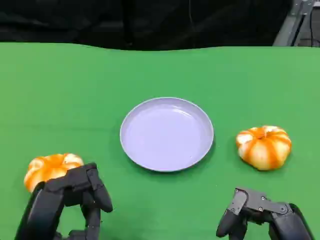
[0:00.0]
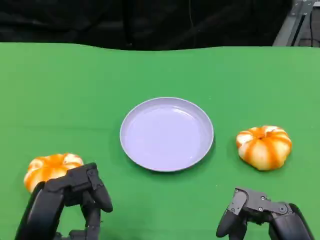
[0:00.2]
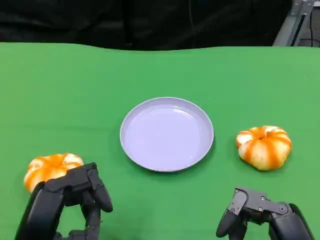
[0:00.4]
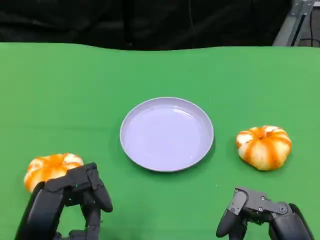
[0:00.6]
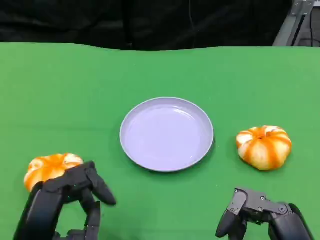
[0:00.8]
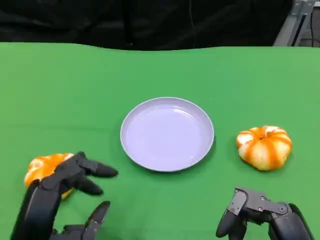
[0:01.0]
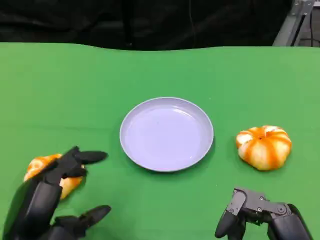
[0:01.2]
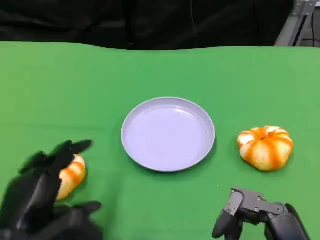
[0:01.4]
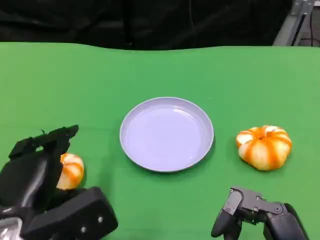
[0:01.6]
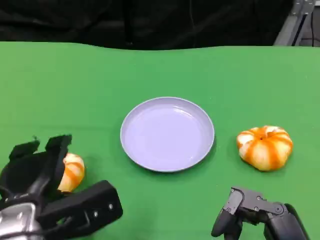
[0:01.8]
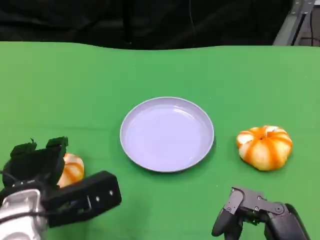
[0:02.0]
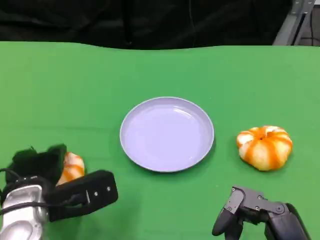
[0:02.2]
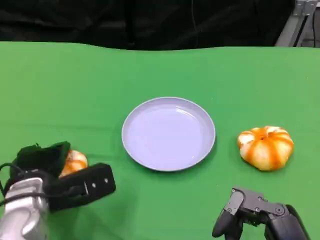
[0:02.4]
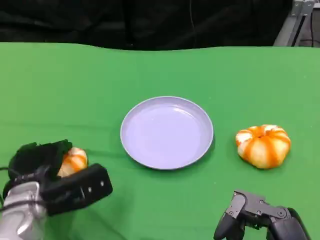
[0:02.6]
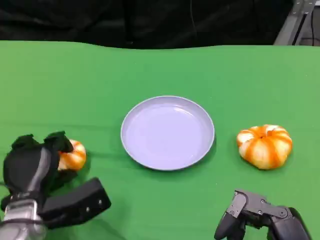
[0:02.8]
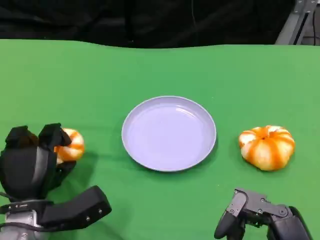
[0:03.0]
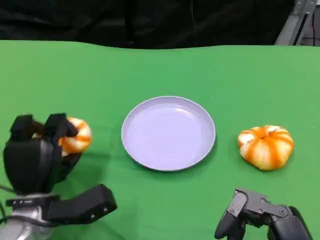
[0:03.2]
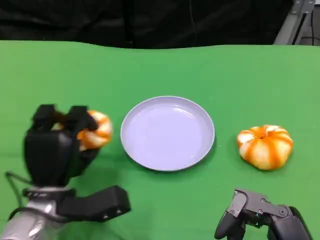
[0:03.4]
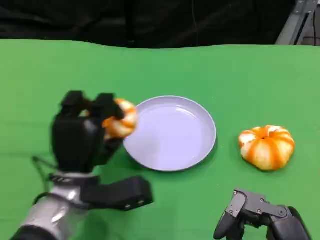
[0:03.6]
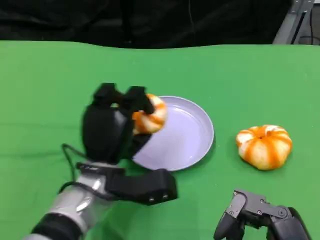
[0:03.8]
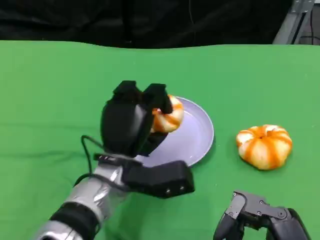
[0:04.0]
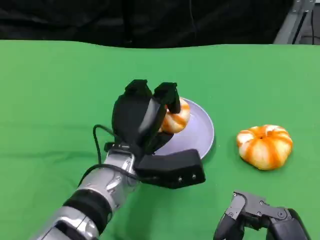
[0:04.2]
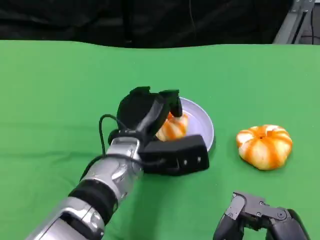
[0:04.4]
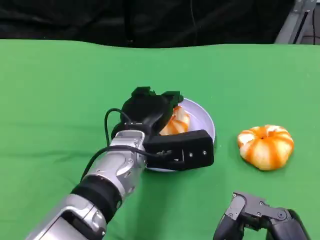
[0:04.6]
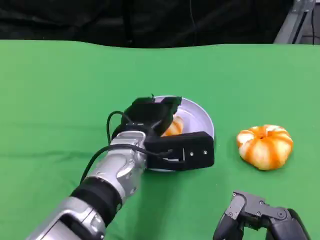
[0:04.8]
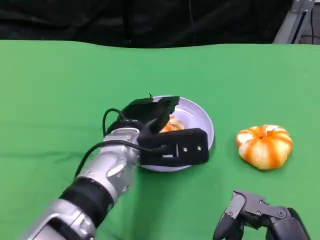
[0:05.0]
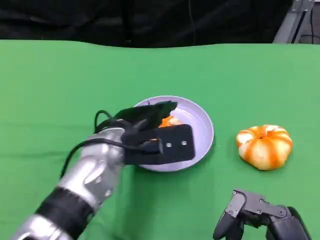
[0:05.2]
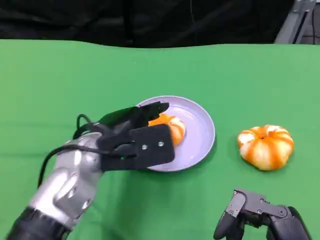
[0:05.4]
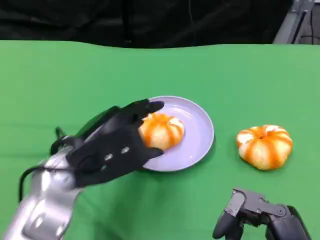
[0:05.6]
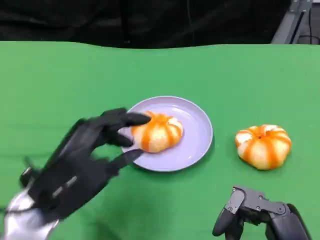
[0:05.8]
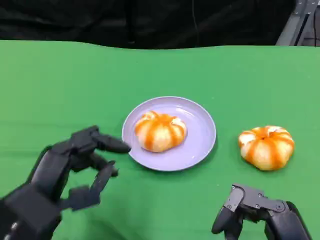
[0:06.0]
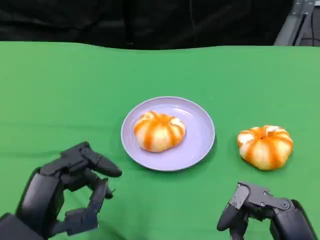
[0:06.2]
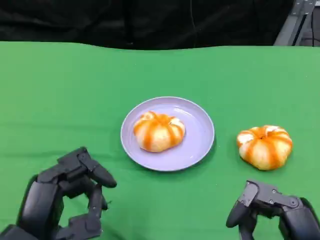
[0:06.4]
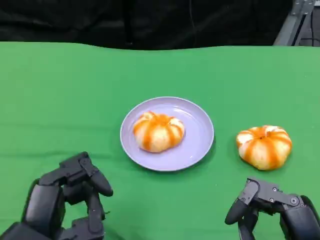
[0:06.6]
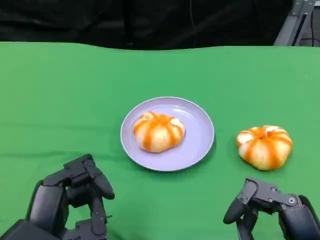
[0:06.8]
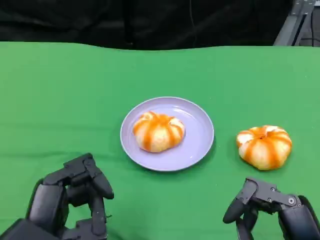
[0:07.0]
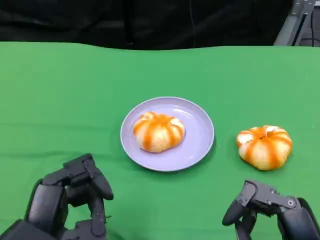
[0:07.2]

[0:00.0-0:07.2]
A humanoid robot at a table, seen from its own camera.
Task of the whole recording: Grasp the bread from the table and place it into the plate.
0:01.4 to 0:02.8: The left hand is displaced downward and forward by approximately 10 cm.
0:02.8 to 0:04.4: The left hand goes about 20 cm to the right, upward and forward.
0:04.4 to 0:05.8: The left hand is displaced to the left and backward by some 15 cm.
0:05.8 to 0:07.2: The left hand heads backward, covering about 5 cm.

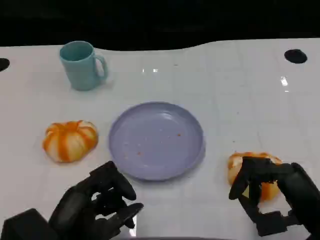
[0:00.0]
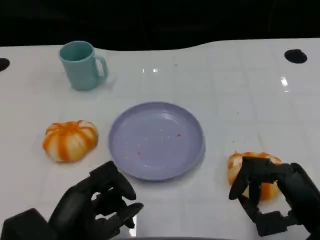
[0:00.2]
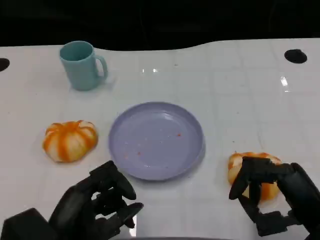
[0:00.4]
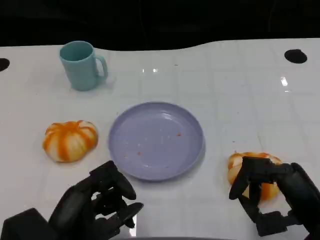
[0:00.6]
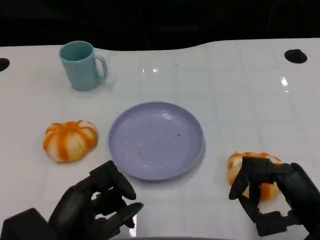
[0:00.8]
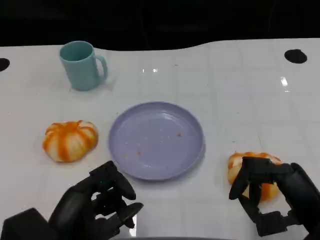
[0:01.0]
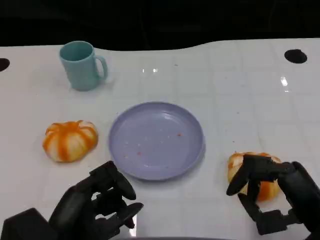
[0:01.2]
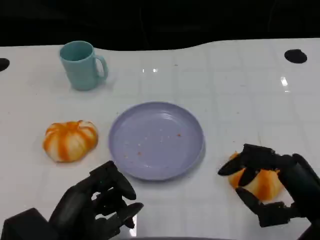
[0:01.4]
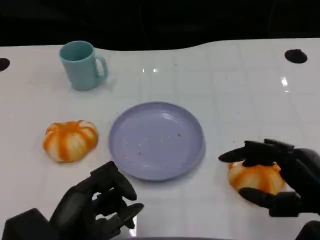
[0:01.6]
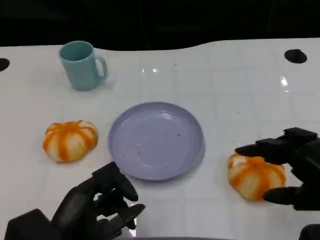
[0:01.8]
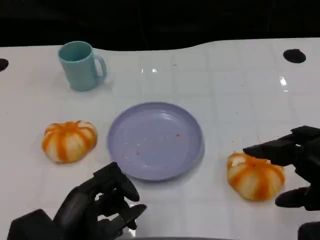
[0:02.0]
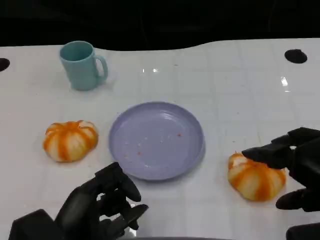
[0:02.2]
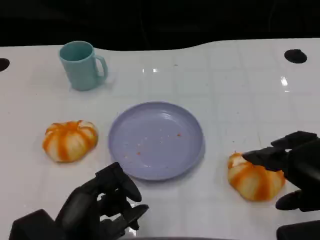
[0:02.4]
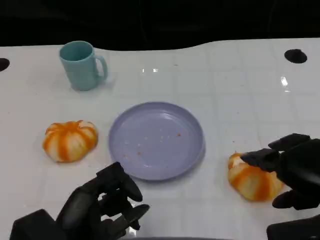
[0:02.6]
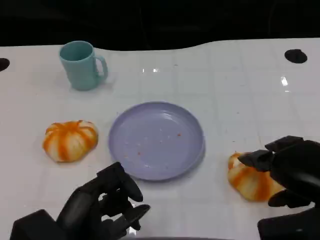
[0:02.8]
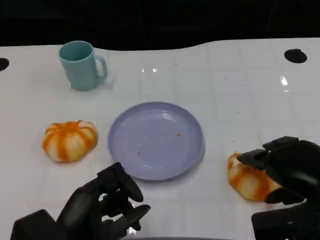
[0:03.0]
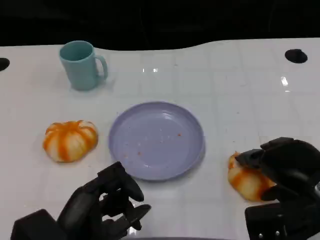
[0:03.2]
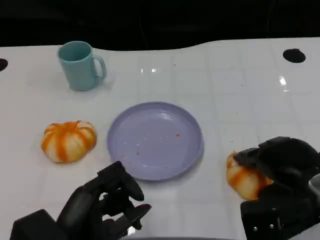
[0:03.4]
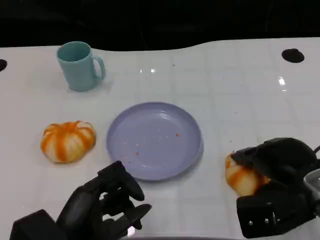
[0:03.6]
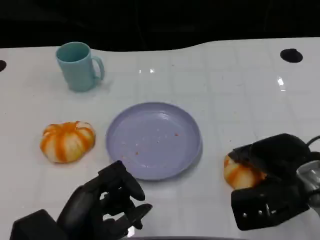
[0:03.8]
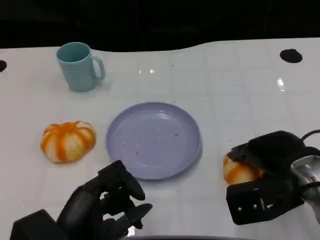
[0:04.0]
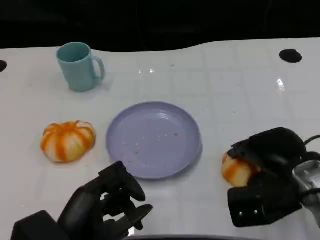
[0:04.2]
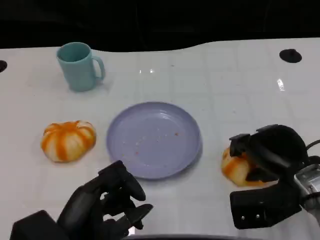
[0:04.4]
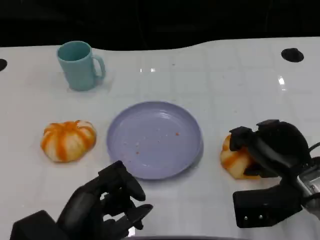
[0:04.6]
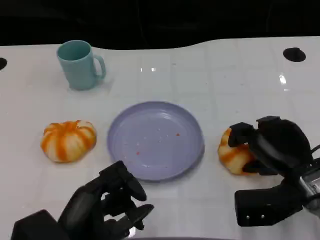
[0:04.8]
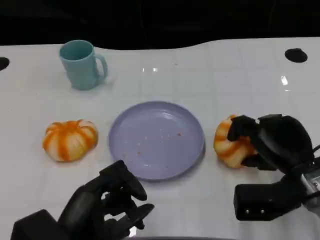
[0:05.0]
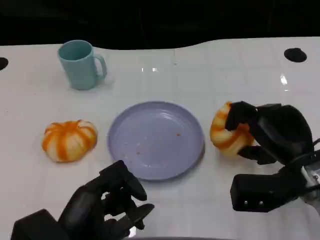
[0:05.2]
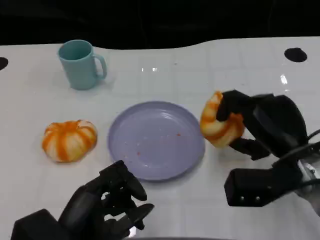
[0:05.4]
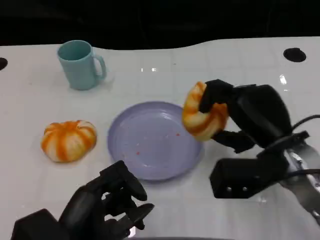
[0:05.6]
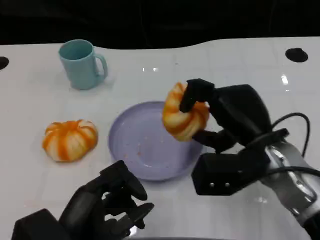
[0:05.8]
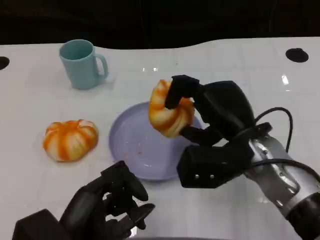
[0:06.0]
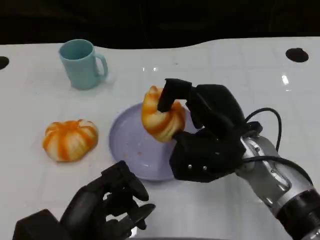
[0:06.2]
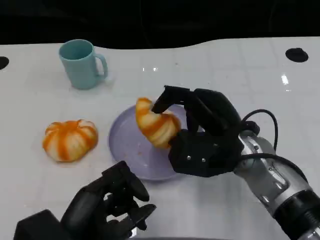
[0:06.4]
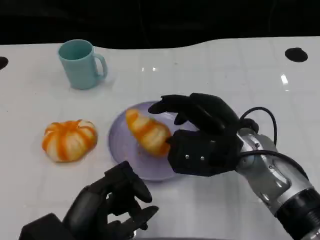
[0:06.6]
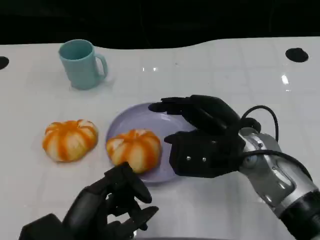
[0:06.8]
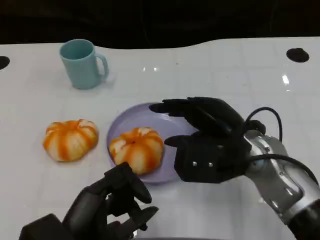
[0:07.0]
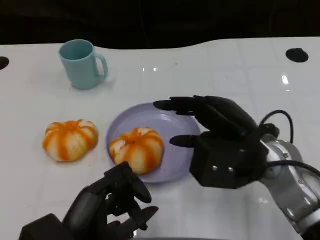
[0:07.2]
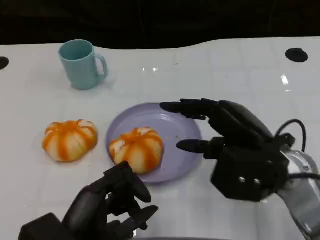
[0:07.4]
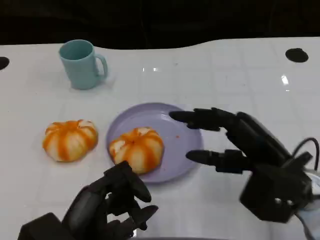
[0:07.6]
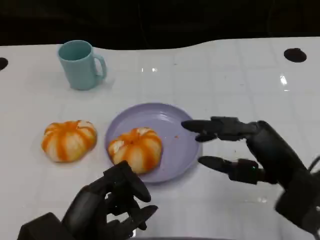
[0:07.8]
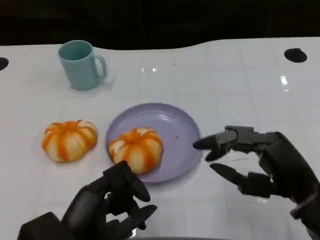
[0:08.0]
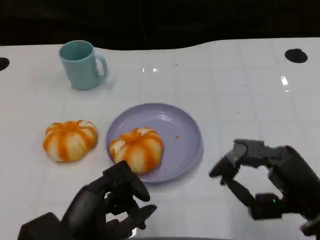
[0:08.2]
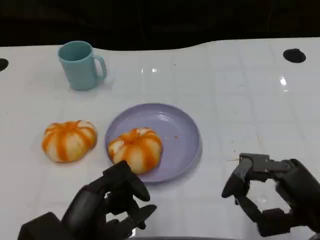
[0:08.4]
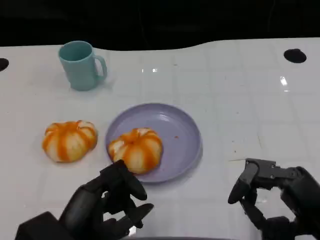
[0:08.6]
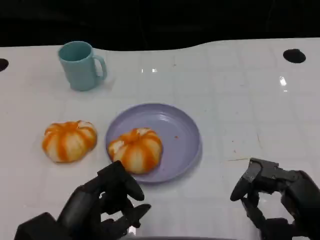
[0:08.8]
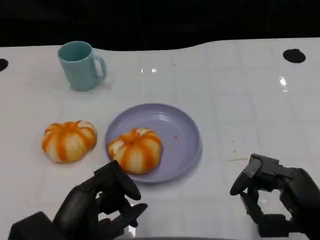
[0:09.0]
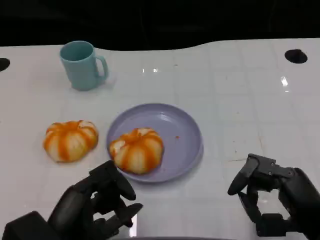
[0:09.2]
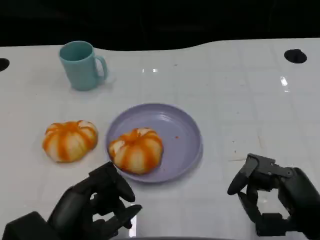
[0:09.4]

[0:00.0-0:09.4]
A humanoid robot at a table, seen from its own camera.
Task of the whole recording: Grasp the bread from the table and place it into the plate.
0:00.0 to 0:01.6: The right hand shifts approximately 5 cm upward.
0:01.6 to 0:03.2: The right hand travels forward by some 5 cm.
0:03.2 to 0:04.8: The right hand changes place by some 5 cm.
0:04.8 to 0:06.2: The right hand shifts approximately 10 cm to the left and upward.
0:06.2 to 0:07.8: The right hand goes about 10 cm to the right and backward.
0:07.8 to 0:09.4: The right hand moves about 5 cm.

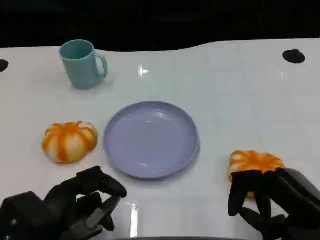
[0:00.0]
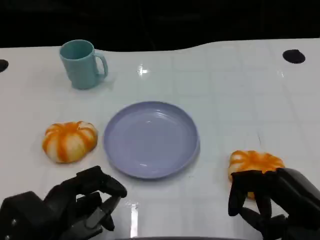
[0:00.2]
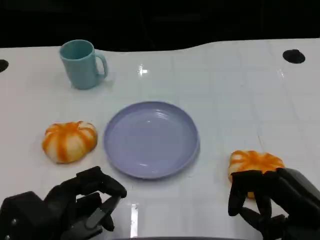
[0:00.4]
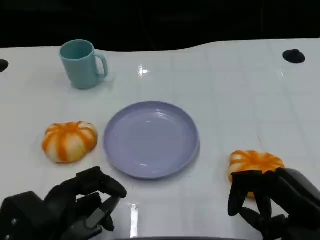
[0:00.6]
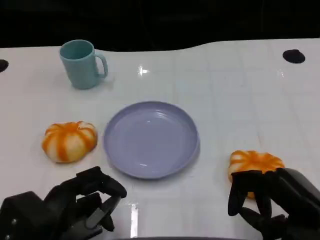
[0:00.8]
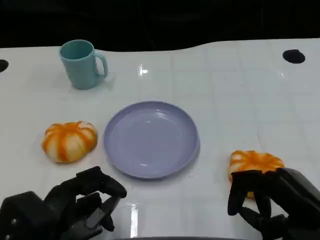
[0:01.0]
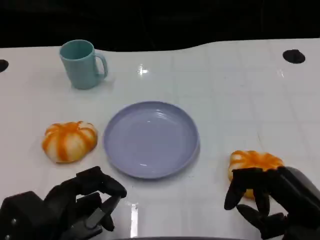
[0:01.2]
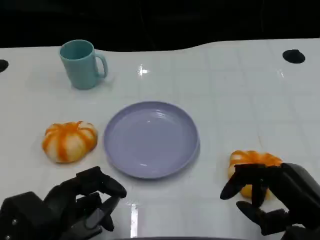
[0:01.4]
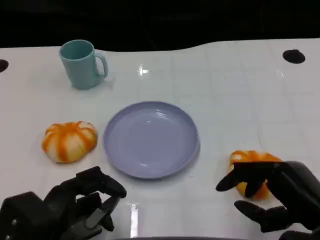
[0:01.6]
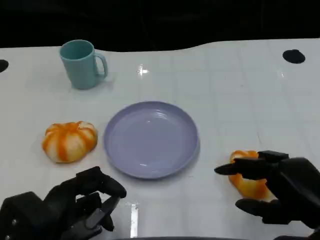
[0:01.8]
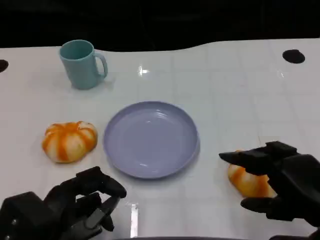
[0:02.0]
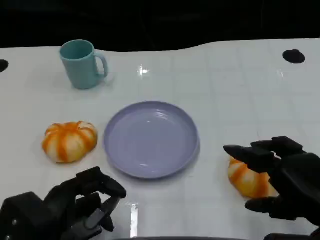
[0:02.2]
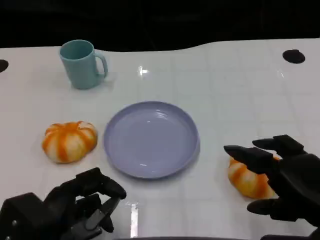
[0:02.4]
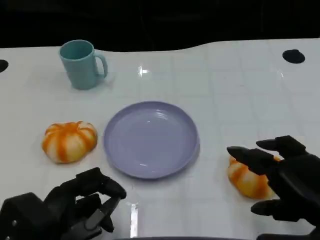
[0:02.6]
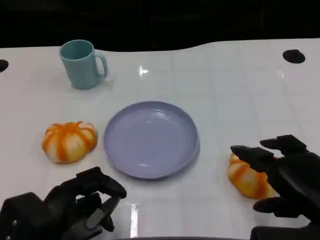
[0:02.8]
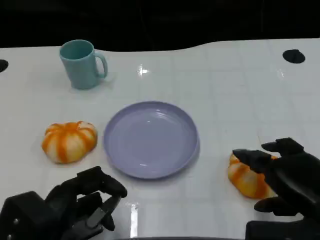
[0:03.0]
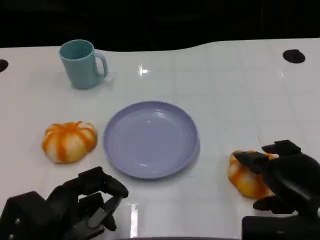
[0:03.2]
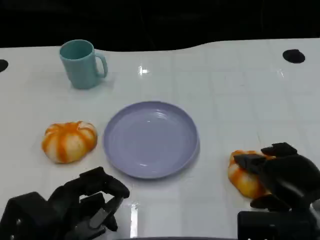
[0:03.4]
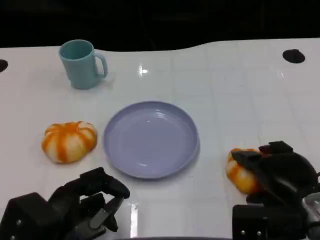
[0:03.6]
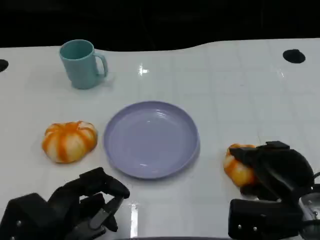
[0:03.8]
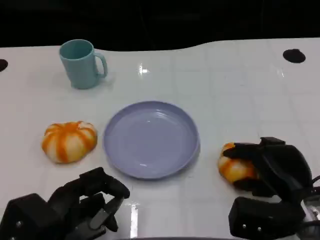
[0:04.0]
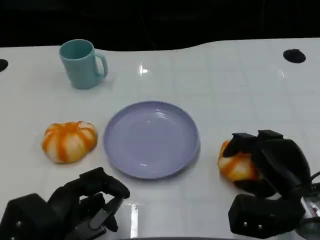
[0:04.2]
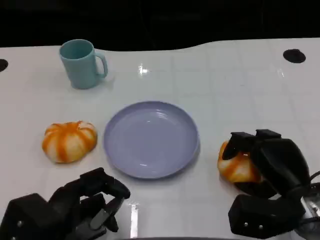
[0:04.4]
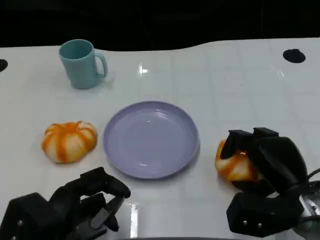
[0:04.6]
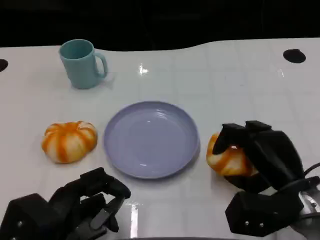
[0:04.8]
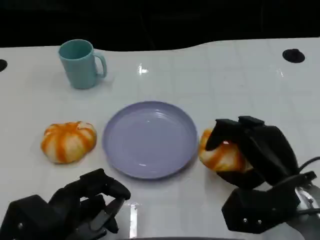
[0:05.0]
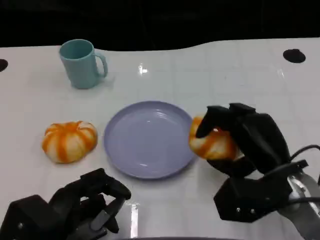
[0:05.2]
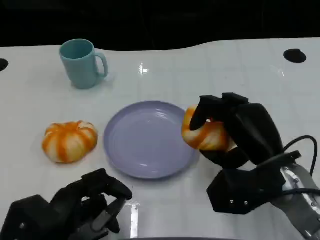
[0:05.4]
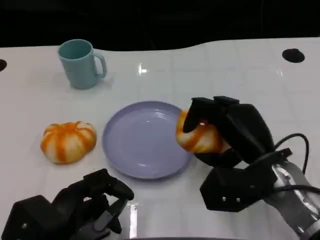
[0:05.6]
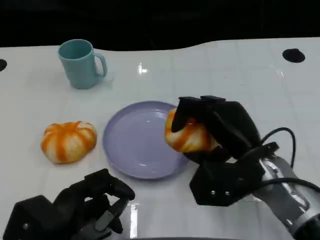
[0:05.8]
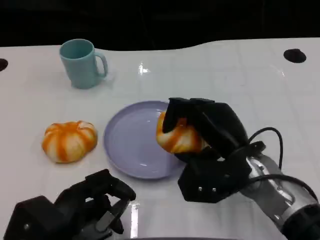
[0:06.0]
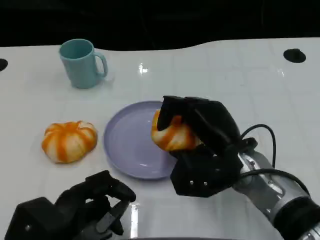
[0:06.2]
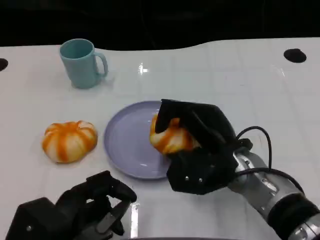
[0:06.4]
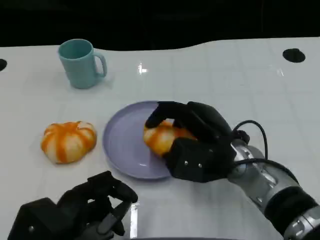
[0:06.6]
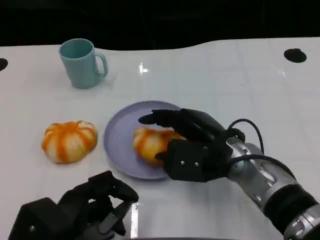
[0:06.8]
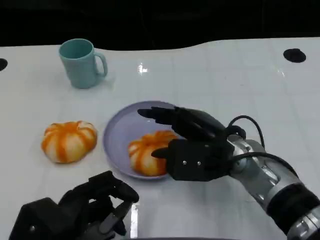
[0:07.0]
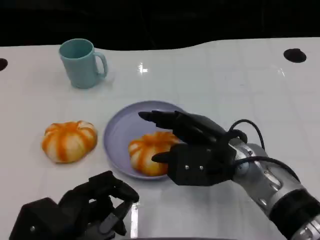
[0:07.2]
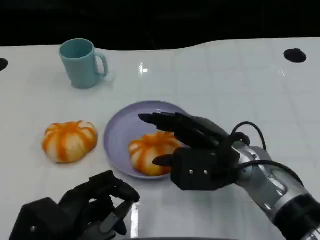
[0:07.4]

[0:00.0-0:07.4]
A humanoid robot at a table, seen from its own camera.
Task of the whole recording: Grasp the bread from the table and place it into the plate.
0:00.0 to 0:01.4: The hands move only a little.
0:03.0 to 0:04.4: The right hand moves approximately 5 cm.
0:04.4 to 0:06.0: The right hand moves to the left, about 10 cm.
